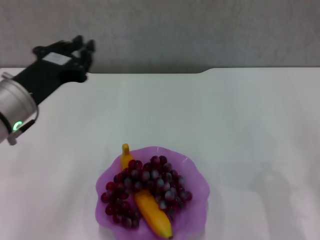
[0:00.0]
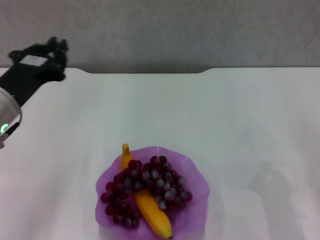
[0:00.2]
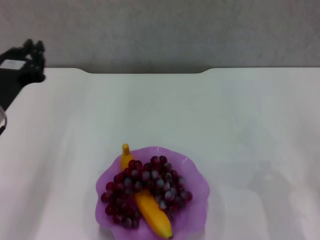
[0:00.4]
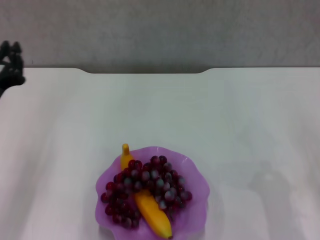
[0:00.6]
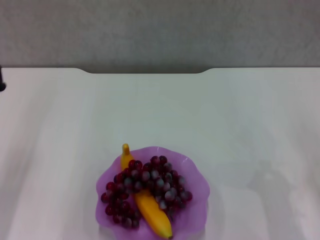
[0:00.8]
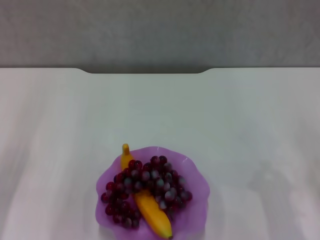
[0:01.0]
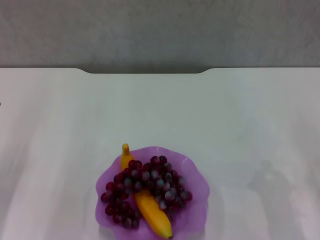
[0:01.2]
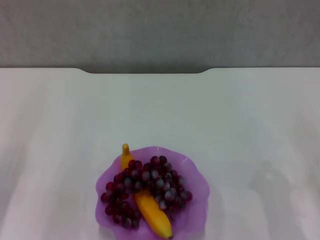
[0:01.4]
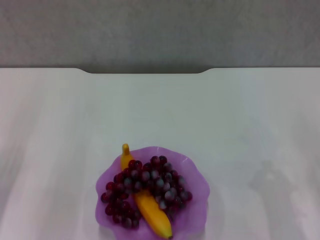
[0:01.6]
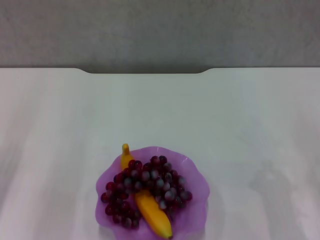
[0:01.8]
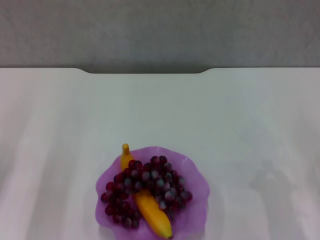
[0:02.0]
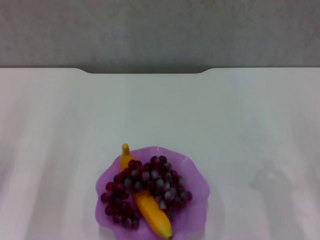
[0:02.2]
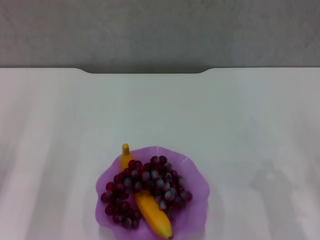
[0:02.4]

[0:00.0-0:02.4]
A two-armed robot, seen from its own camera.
0:00.0 to 0:01.2: The left gripper moves to the left and downward, approximately 15 cm.
0:01.2 to 0:02.4: The grippers stay close to where they were, moving slightly.
